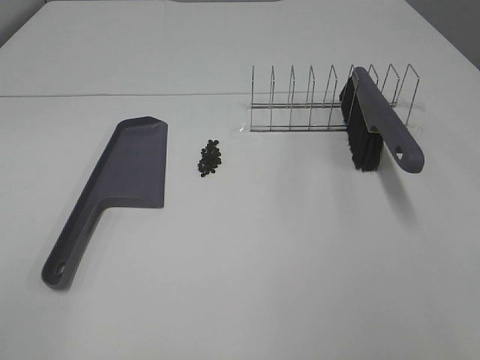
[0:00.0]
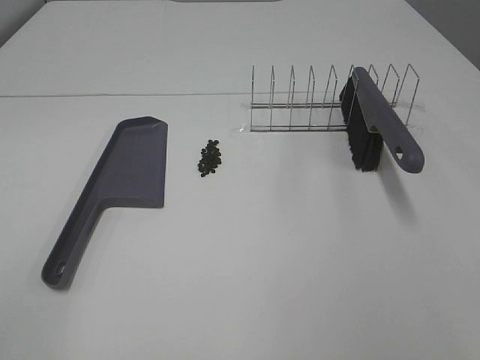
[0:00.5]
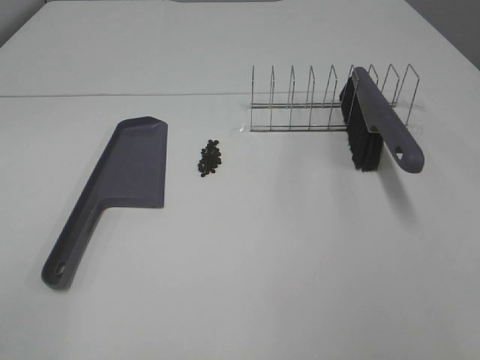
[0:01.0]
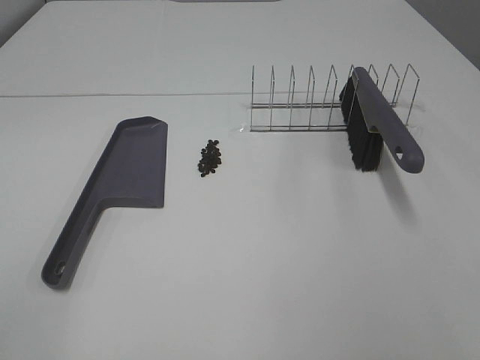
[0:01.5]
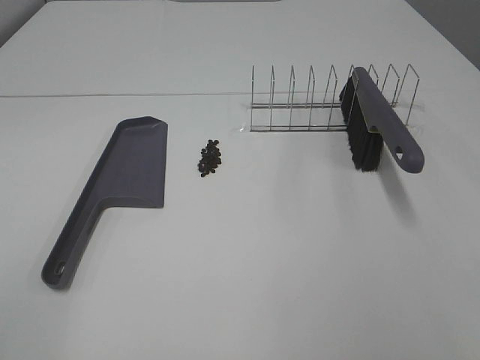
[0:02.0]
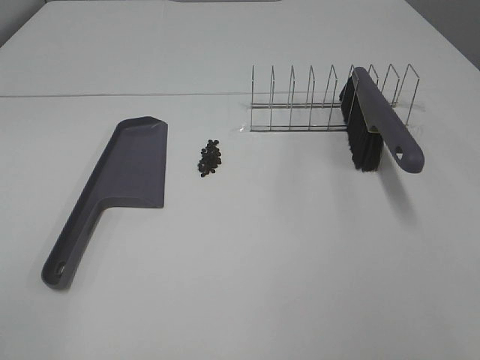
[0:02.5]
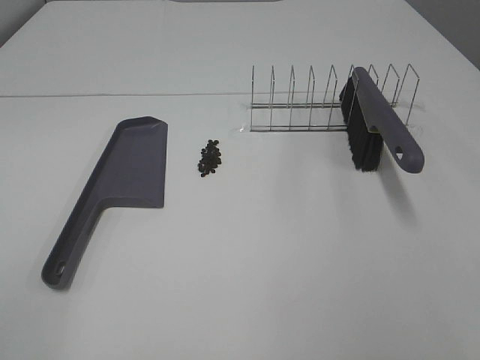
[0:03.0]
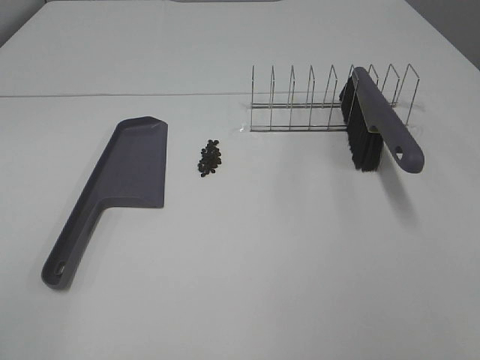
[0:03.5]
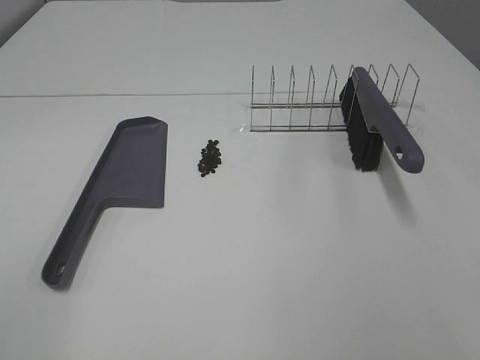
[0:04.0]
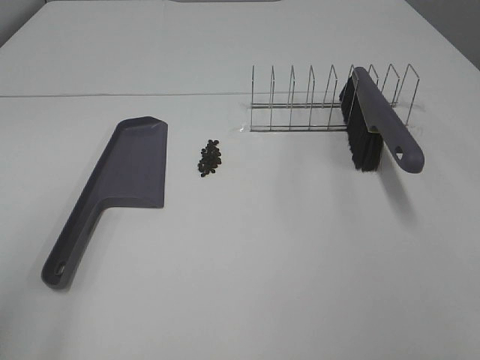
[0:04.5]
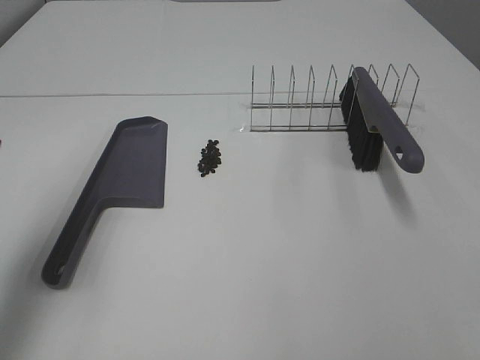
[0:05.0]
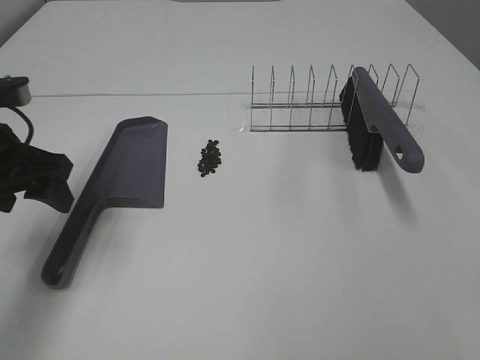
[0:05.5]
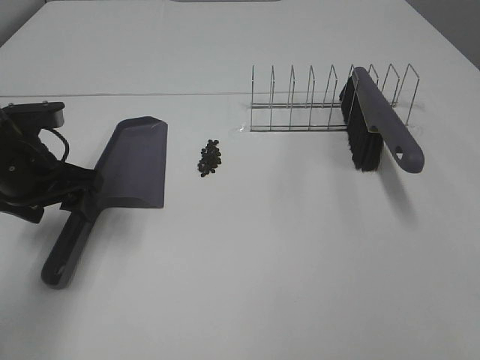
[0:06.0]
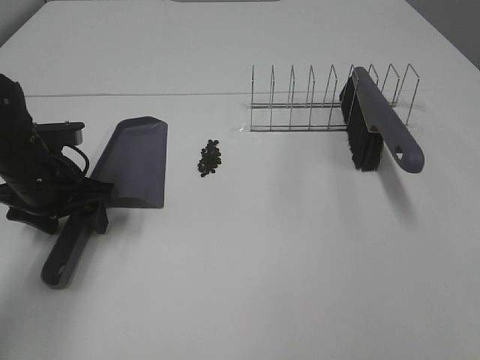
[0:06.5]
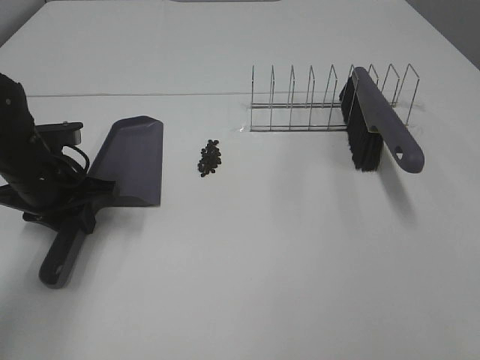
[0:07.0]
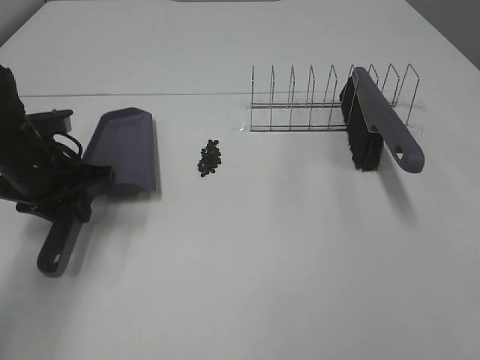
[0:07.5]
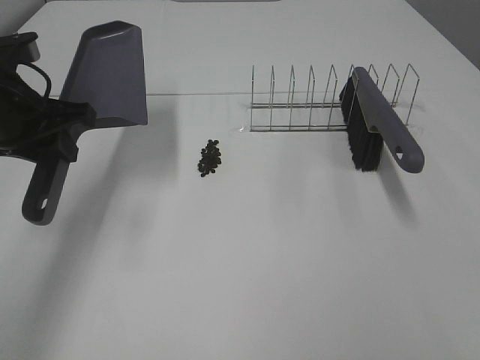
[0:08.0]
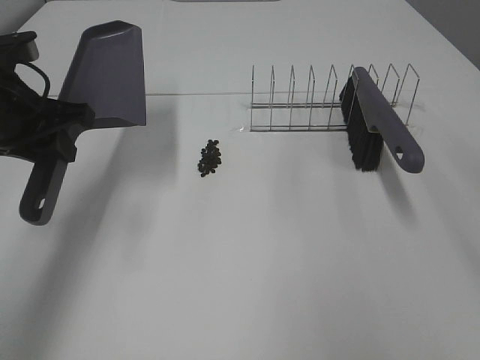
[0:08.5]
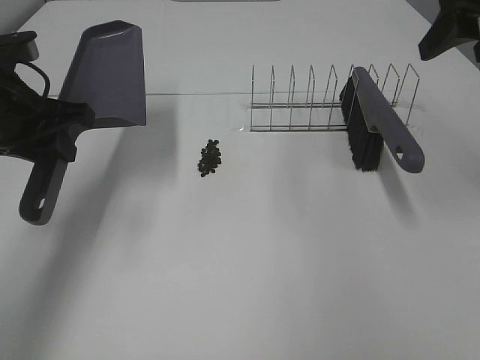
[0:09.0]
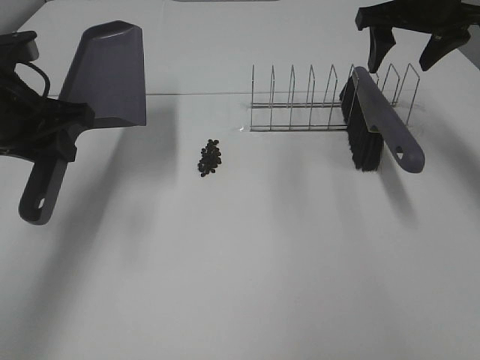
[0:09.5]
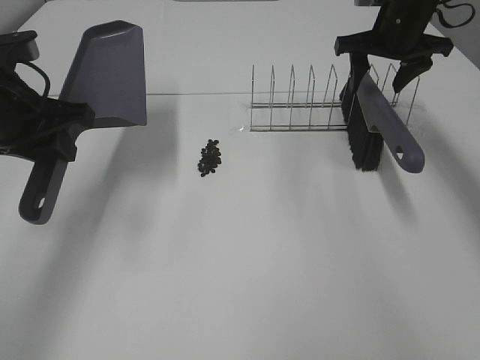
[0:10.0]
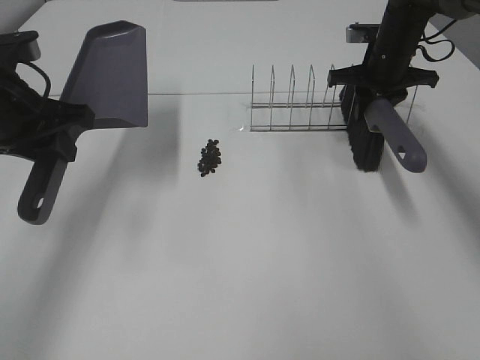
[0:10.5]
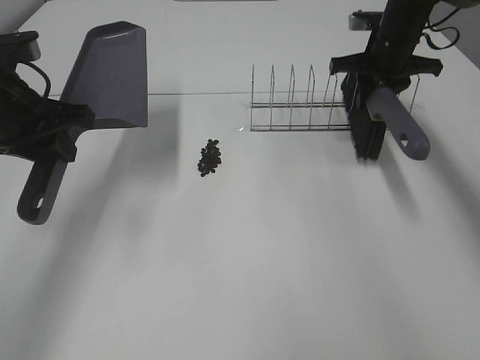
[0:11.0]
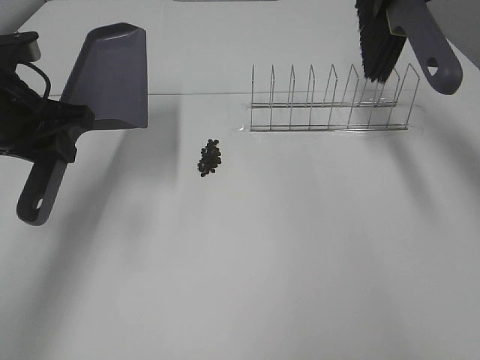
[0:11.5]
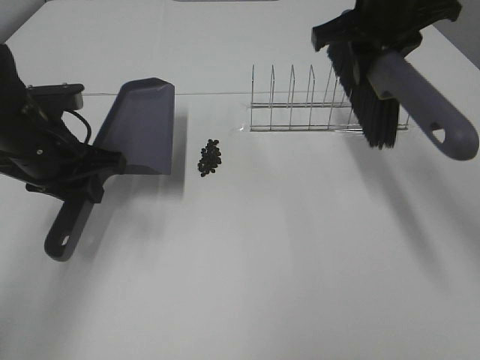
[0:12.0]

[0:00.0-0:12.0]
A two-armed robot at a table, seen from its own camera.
Task of the whole recording: Sweep Coffee Bean.
Step, 0:00.0 to 0:06.5: Left hand: grab the dustpan.
Step, 0:08.0 to 0:10.5: Right hand:grab the broom.
0:00.0 to 0:04.0: Both grippers stay put.
0:04.0 to 0:06.0: The left gripper travels forward and downward by roughly 35 cm.
0:06.0 to 0:08.0: The left gripper moves upward, about 5 cm, and closes.
0:08.0 to 0:10.0: The right gripper heads forward, covering approximately 50 cm.
0:10.0 to 0:12.0: The left gripper moves downward, about 5 cm; the right gripper moves up and down over roughly 15 cm, changing direction 2 times, and closes its fingers.

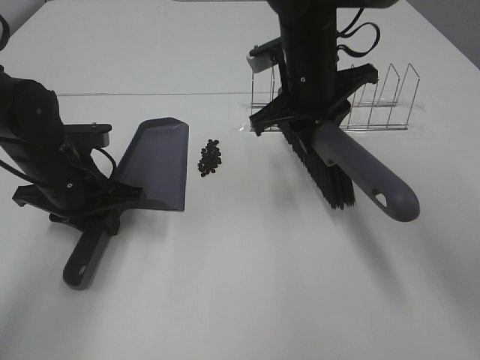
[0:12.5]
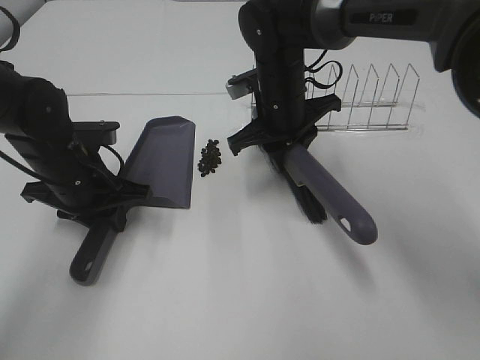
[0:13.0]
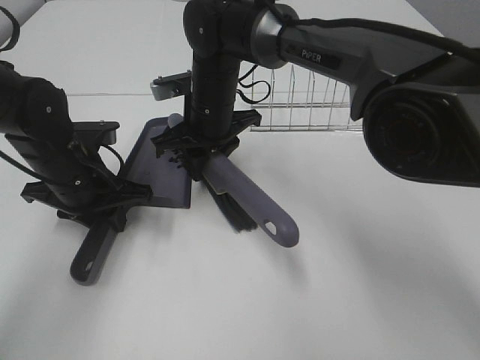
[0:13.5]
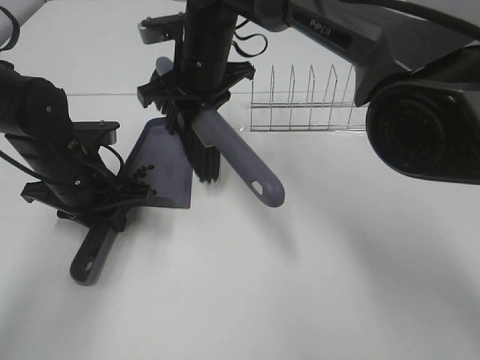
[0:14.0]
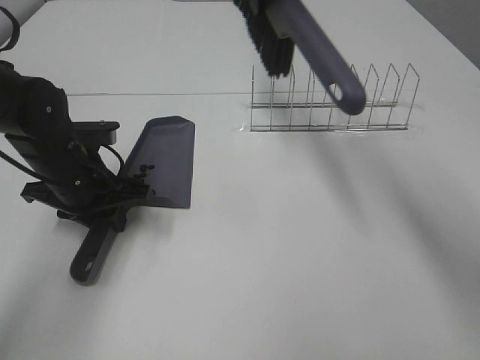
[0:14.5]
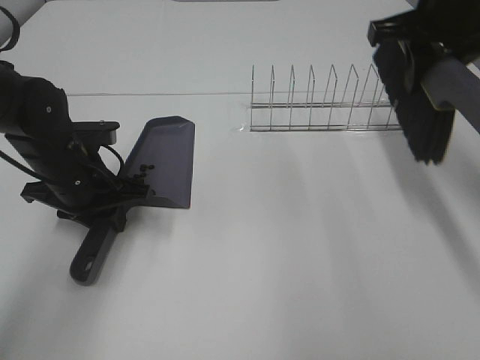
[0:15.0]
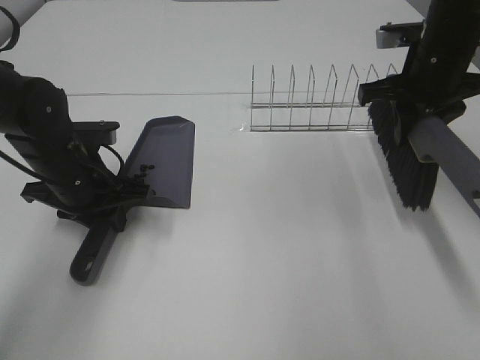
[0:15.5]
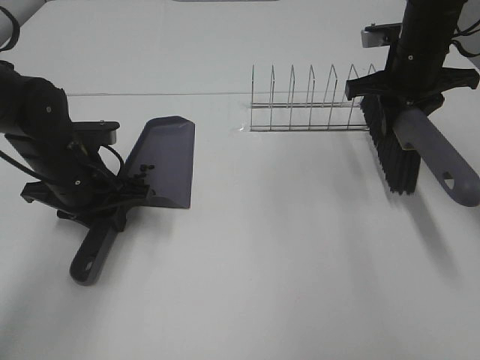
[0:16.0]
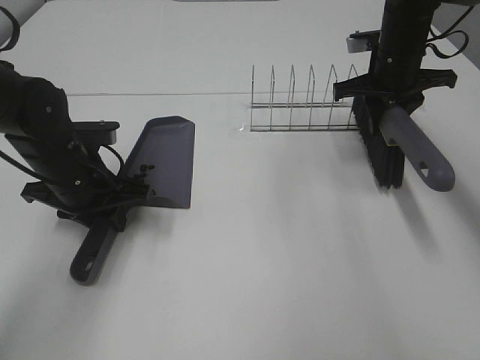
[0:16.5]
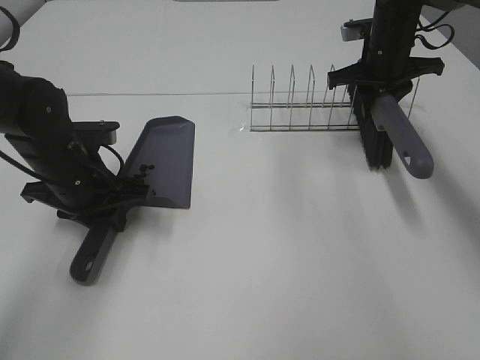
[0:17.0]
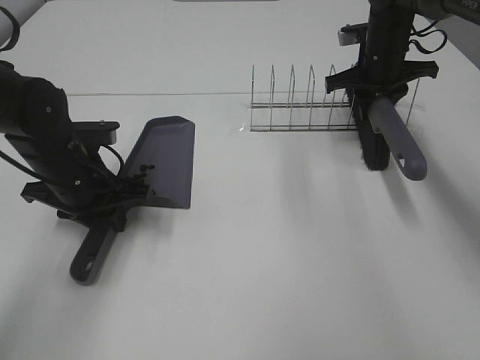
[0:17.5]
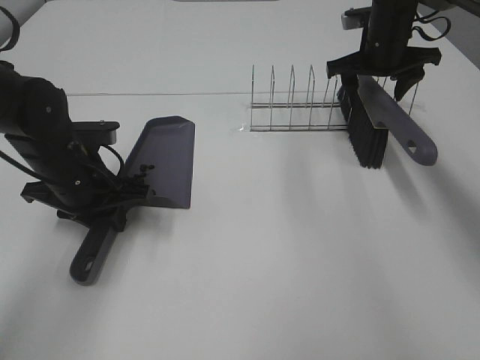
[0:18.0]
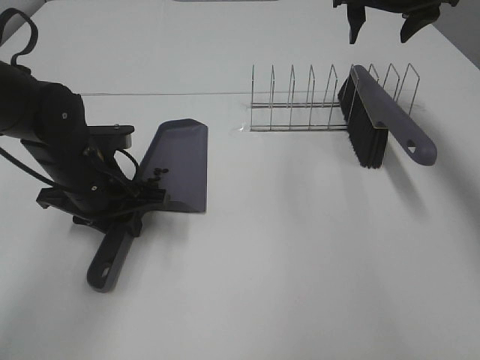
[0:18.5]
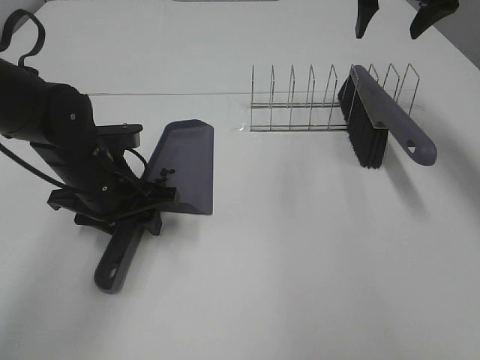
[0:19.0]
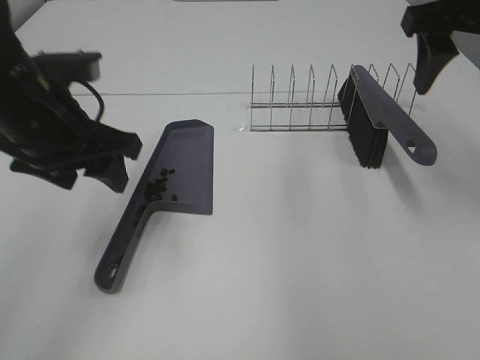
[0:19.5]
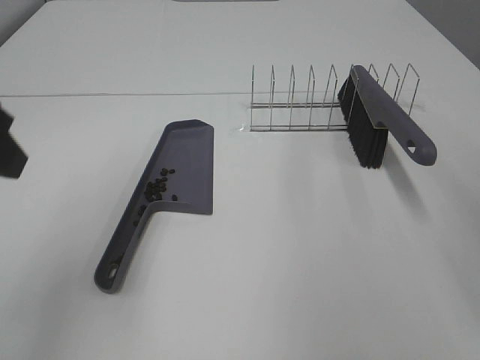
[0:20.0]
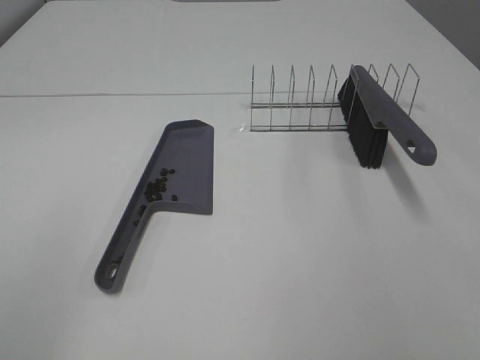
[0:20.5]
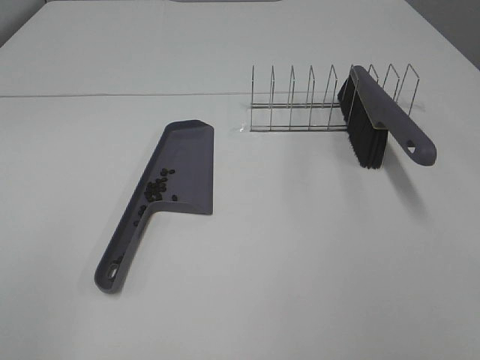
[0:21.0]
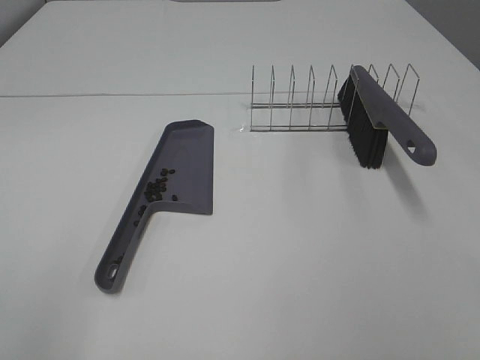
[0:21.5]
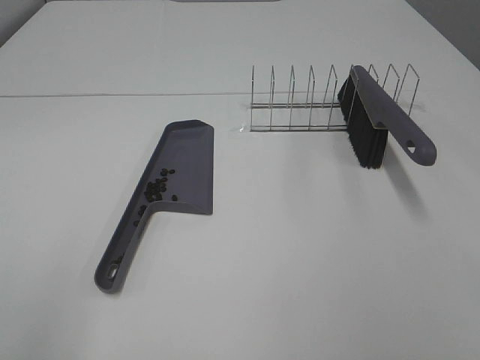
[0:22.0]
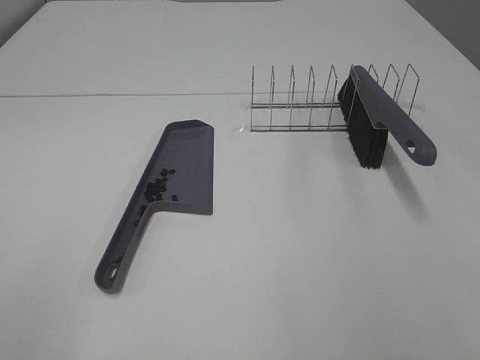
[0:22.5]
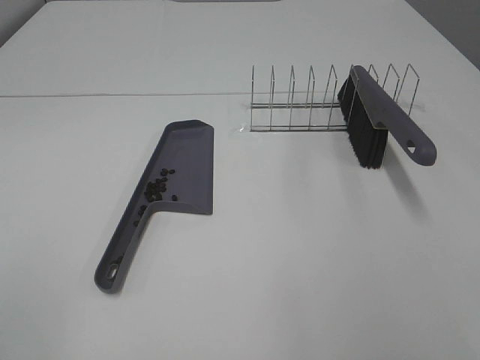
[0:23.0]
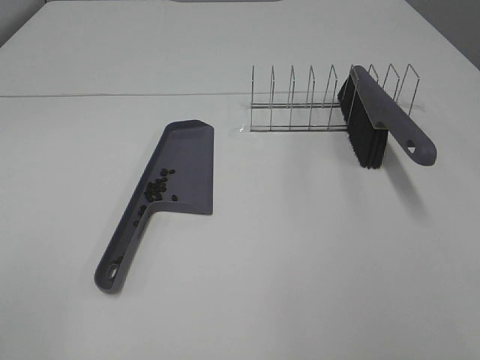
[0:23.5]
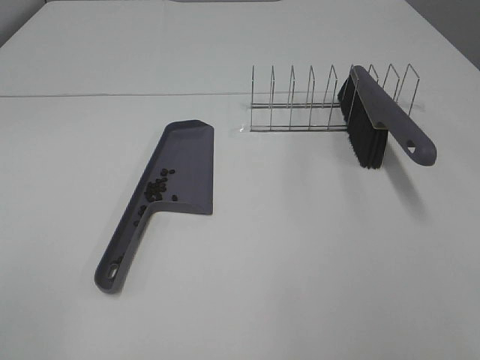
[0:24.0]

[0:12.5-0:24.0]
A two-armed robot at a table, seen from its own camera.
Task of the whole recording: Sweep Coffee Bean.
Step, 0:14.0 to 0:18.0: Right hand:place the broom on the rack.
Step, 0:18.5 to 0:19.0: Left hand:place the dustpan on the table.
0:12.5 to 0:14.5: The right gripper goes approximately 15 cm upward.
0:14.5 to 0:16.5: The right gripper goes some 20 cm downward and to the right.
0:16.5 to 0:18.5: The right gripper shifts roughly 10 cm upward, and opens up.
0:18.5 to 0:20.0: The left gripper goes roughly 25 cm upward and backward, and opens. Meanwhile the right gripper heads backward, covering roughly 30 cm.
0:20.0 to 0:22.0: The left gripper goes roughly 15 cm backward.

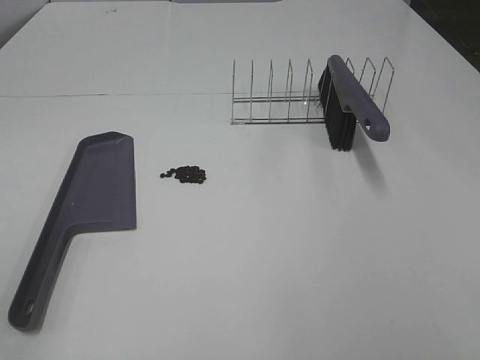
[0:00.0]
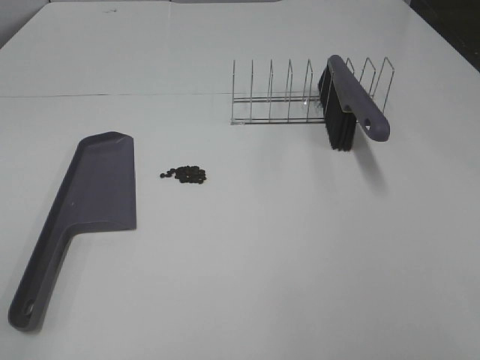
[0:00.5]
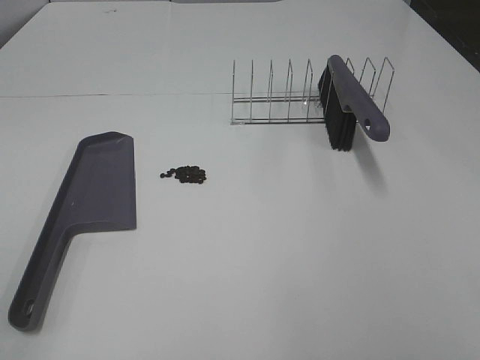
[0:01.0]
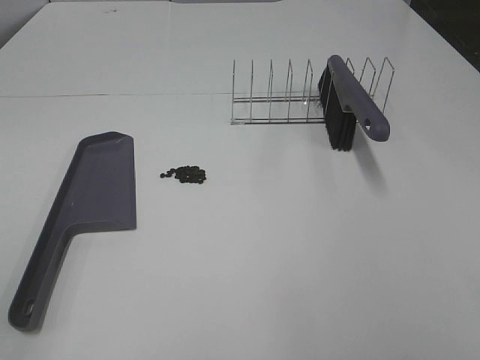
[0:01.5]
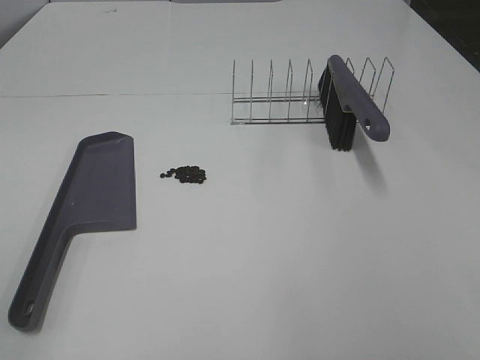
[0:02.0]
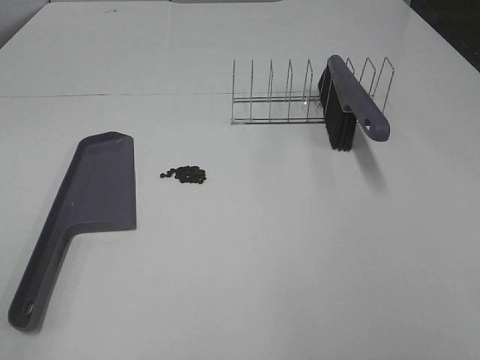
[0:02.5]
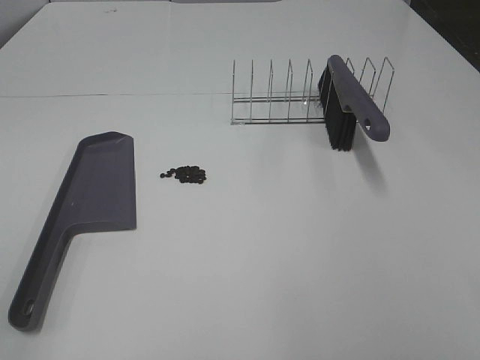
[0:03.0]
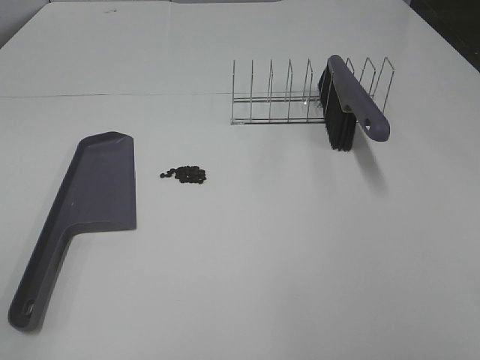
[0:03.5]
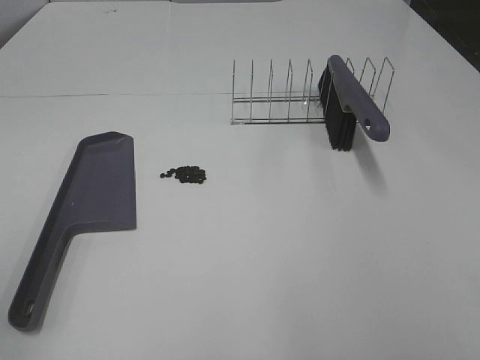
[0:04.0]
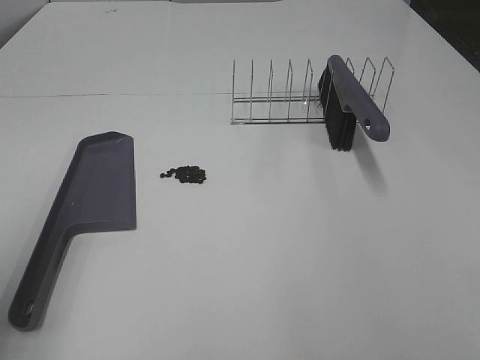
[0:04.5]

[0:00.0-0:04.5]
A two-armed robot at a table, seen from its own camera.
Task of the whole recording: Sweep Coffee Bean.
0:00.0 to 0:02.0: Both grippers stay about where they are.
0:02.0 to 0:04.5: The left gripper moves forward, roughly 15 cm.
